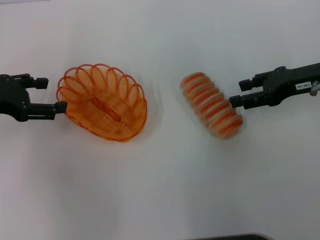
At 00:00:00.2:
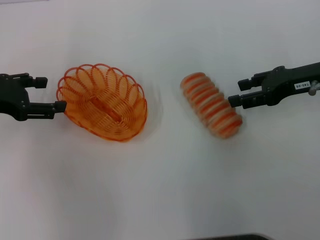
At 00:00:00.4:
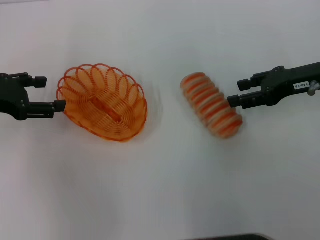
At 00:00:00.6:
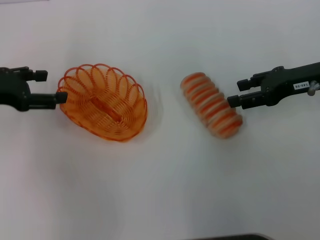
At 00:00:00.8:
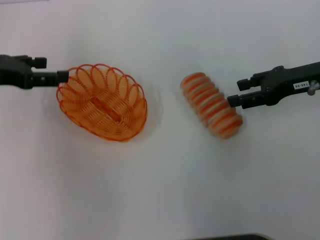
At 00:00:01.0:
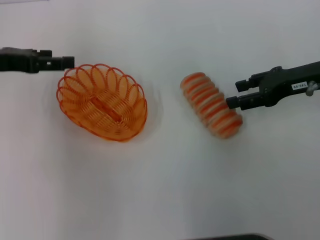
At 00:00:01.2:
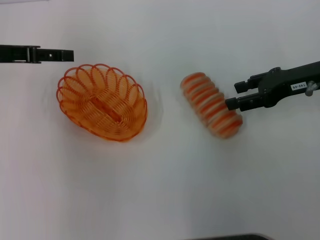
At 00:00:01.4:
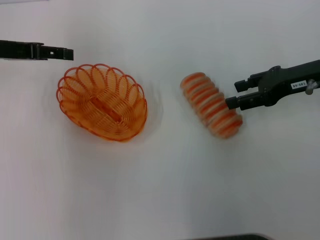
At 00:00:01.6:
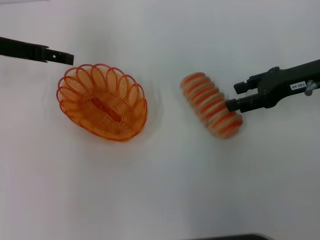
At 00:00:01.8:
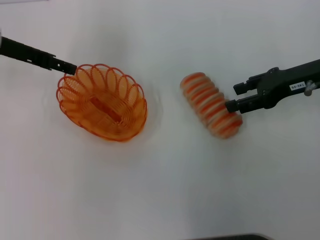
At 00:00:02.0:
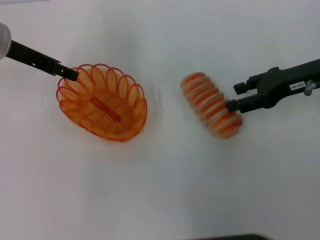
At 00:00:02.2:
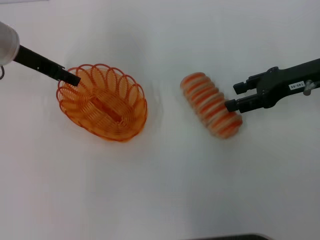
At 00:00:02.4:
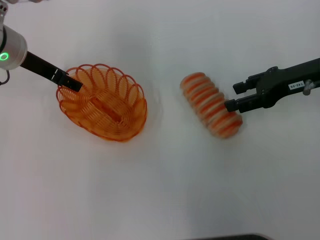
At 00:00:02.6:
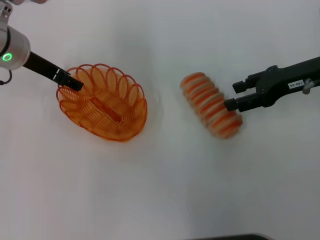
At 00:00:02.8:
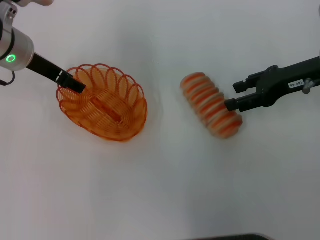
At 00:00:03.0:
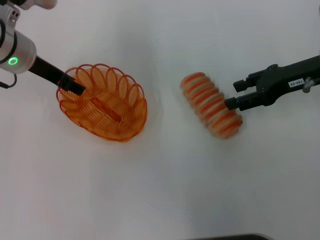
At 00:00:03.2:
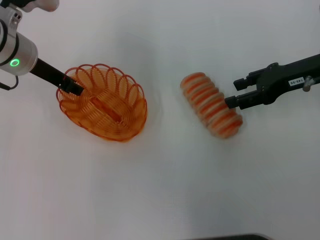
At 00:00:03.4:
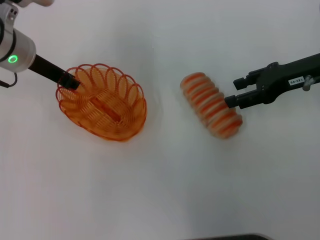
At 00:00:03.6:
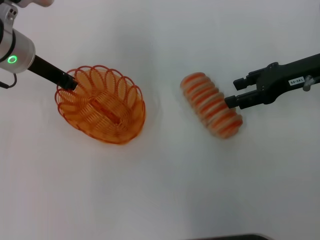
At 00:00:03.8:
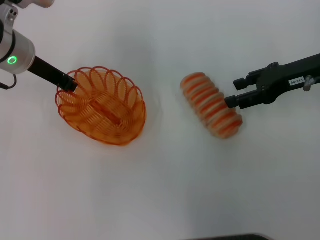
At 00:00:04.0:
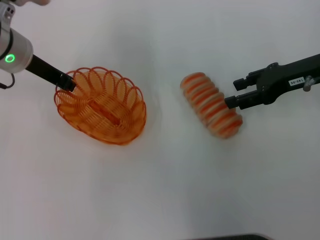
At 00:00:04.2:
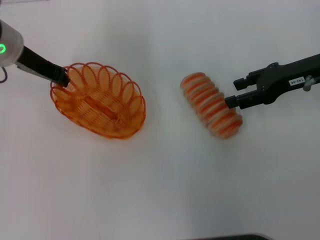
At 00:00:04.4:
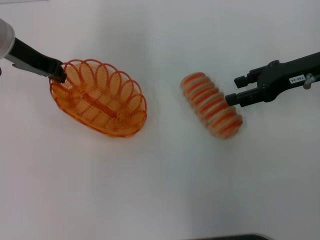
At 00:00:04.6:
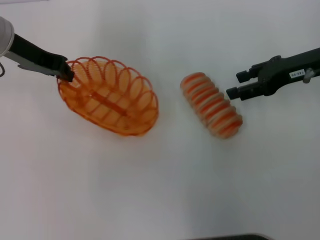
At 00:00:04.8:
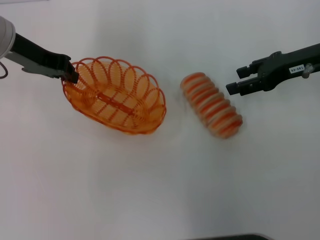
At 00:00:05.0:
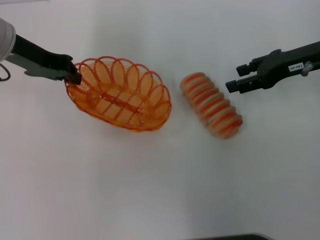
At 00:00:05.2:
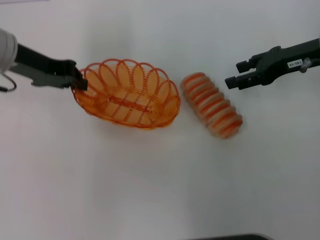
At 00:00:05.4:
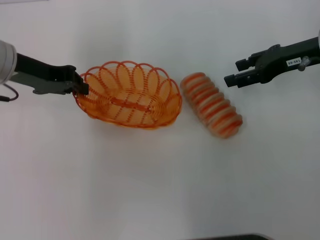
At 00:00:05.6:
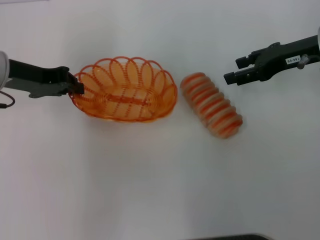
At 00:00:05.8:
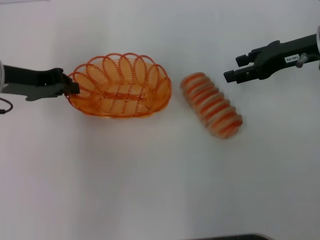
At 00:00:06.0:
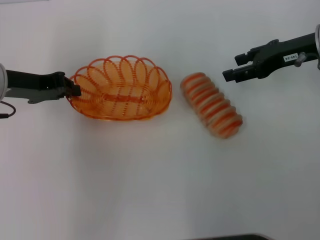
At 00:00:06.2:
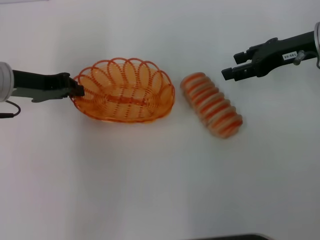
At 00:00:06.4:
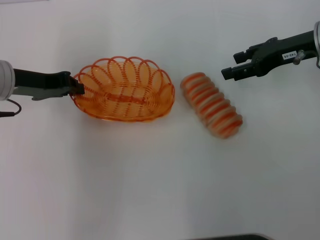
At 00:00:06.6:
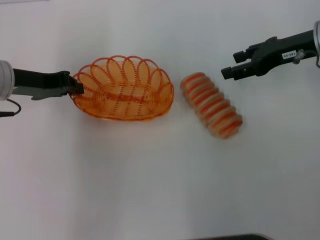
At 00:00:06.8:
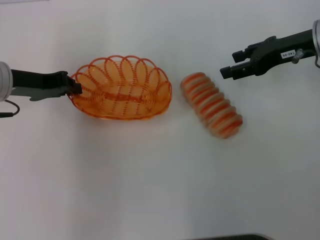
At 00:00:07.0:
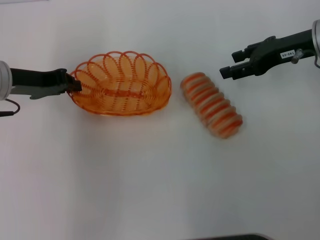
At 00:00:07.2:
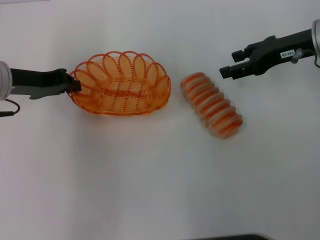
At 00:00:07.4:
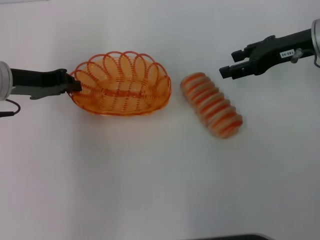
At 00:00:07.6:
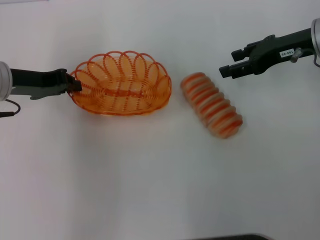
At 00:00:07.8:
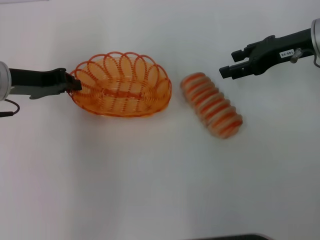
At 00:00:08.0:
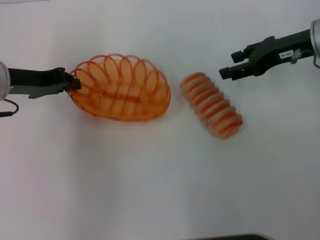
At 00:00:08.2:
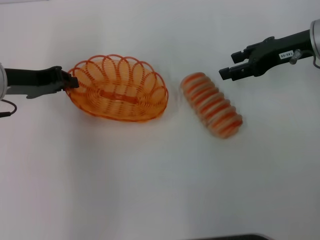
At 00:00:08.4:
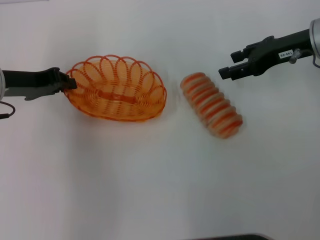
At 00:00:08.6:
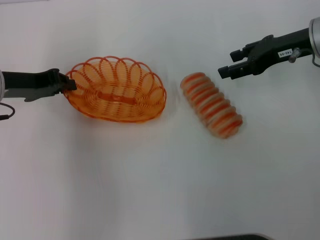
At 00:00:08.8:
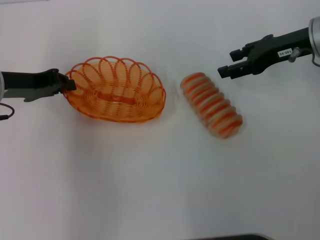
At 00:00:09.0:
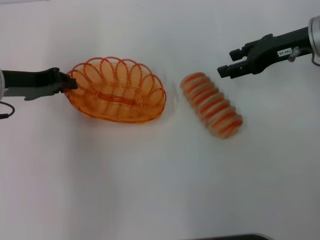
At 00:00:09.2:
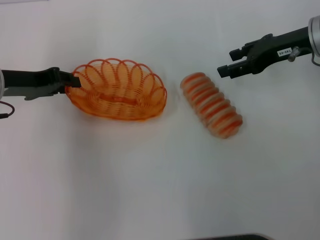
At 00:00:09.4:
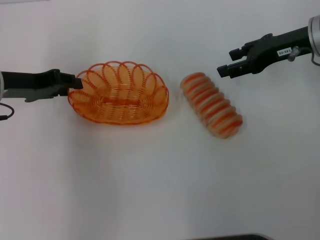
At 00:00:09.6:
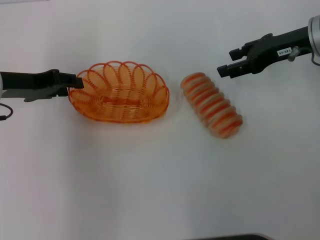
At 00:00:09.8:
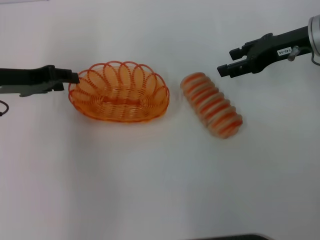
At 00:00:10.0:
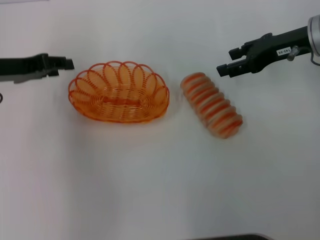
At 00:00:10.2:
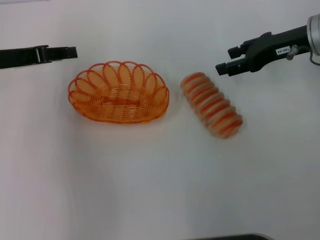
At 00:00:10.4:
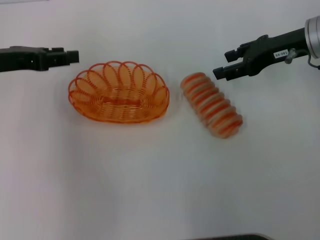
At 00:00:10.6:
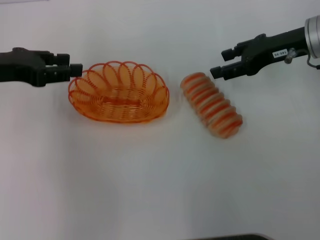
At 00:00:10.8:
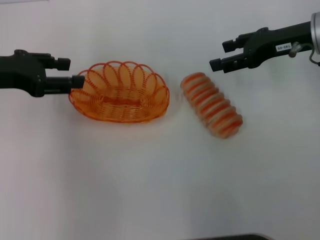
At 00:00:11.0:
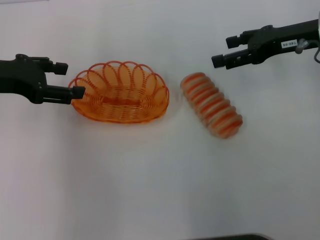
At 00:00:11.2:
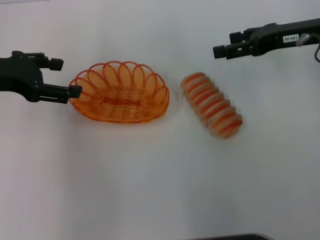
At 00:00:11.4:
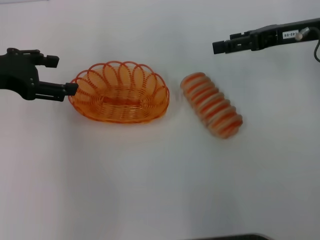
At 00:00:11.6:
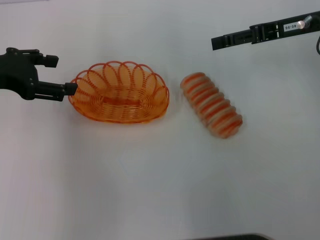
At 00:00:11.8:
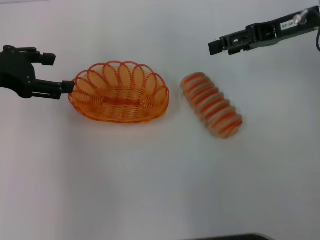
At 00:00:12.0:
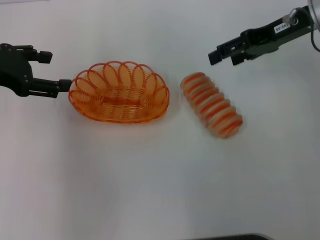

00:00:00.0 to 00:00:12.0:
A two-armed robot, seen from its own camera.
Step, 00:00:00.0 to 00:00:05.0: Pick up the basket with the left gripper.
Step, 00:00:05.2 to 00:00:10.4: Place the basket in the center of view with the left gripper.
00:00:00.0 to 00:00:01.6: The left gripper travels forward by approximately 10 cm.
00:00:01.6 to 00:00:03.0: The left gripper goes about 5 cm to the right.
00:00:03.0 to 00:00:04.4: The left gripper closes up.
00:00:04.4 to 00:00:06.0: The left gripper goes about 5 cm backward.
00:00:06.0 to 00:00:07.6: Both grippers stay put.
00:00:07.6 to 00:00:09.0: Neither gripper changes place.
00:00:09.0 to 00:00:10.4: The left gripper opens its fingers.
00:00:10.4 to 00:00:12.0: The left gripper opens.

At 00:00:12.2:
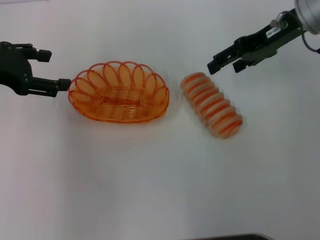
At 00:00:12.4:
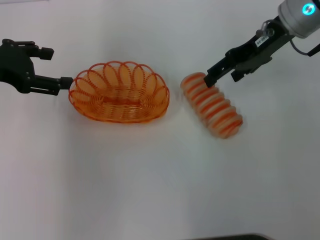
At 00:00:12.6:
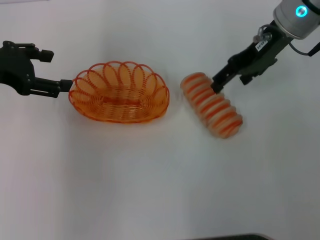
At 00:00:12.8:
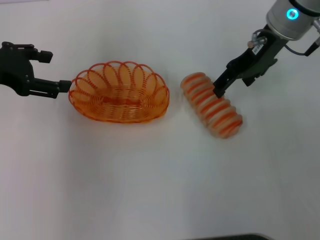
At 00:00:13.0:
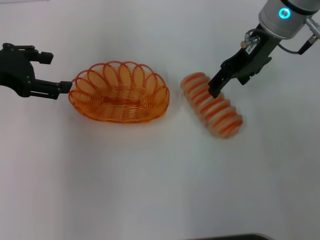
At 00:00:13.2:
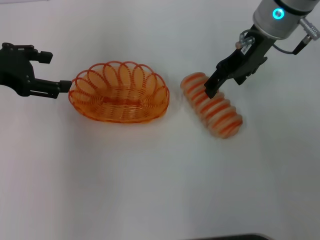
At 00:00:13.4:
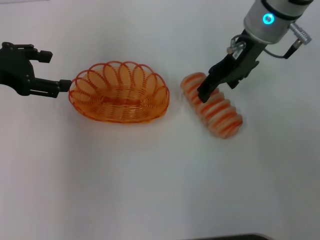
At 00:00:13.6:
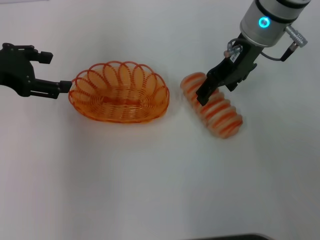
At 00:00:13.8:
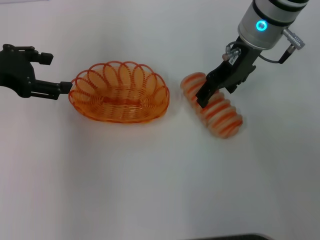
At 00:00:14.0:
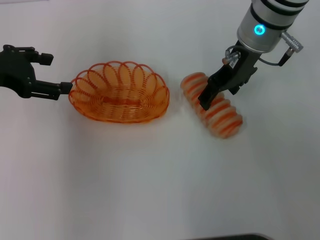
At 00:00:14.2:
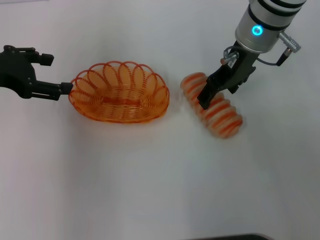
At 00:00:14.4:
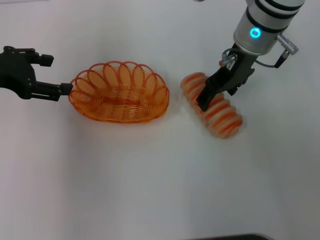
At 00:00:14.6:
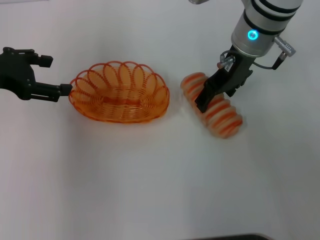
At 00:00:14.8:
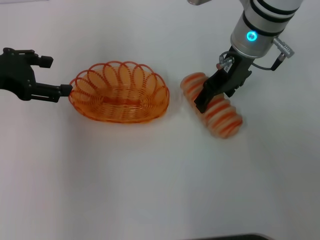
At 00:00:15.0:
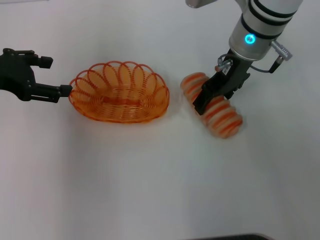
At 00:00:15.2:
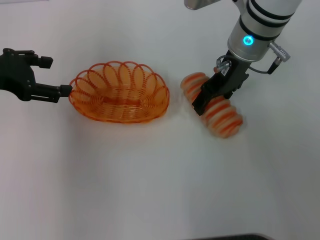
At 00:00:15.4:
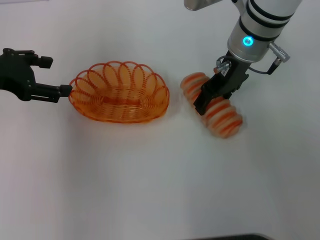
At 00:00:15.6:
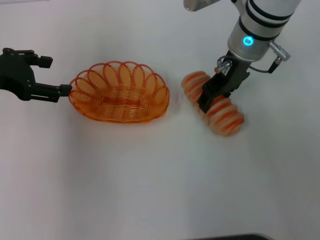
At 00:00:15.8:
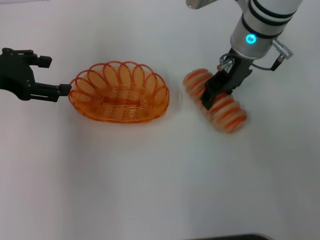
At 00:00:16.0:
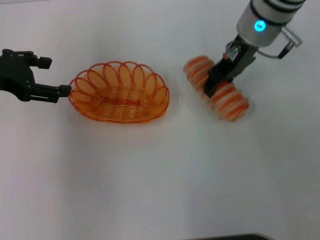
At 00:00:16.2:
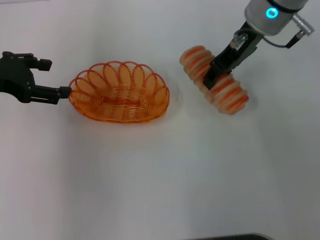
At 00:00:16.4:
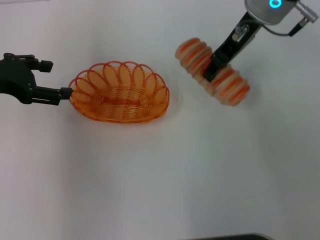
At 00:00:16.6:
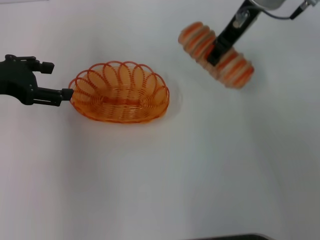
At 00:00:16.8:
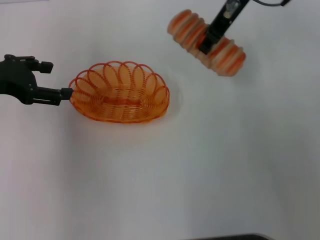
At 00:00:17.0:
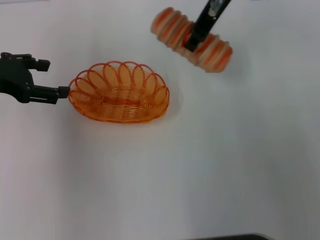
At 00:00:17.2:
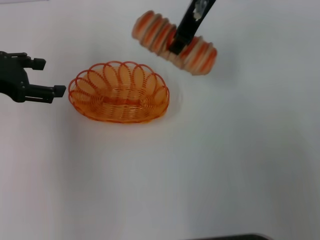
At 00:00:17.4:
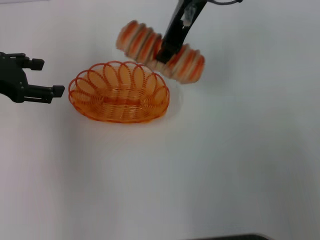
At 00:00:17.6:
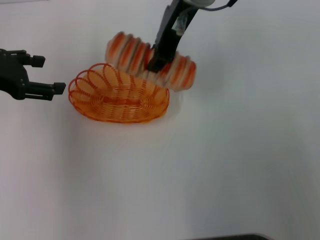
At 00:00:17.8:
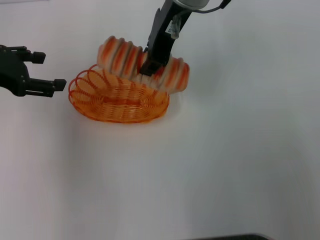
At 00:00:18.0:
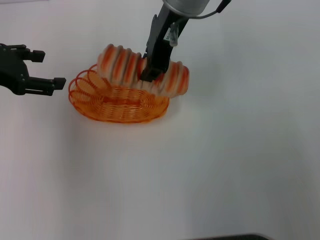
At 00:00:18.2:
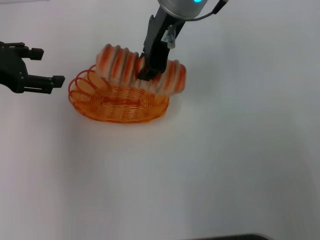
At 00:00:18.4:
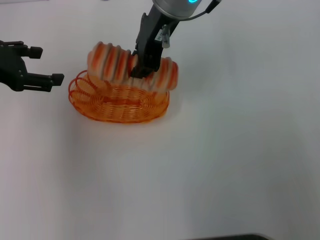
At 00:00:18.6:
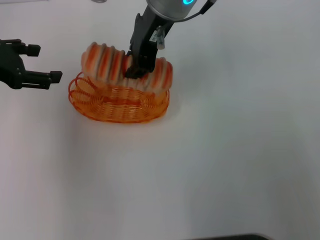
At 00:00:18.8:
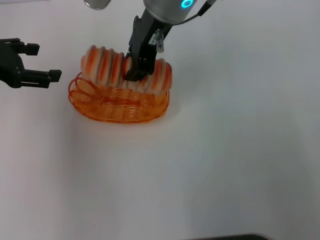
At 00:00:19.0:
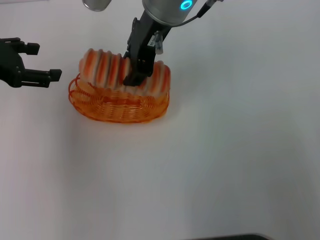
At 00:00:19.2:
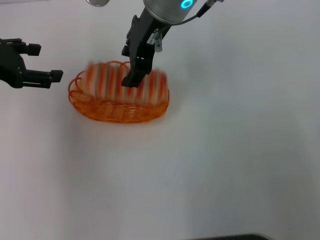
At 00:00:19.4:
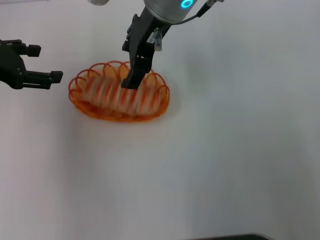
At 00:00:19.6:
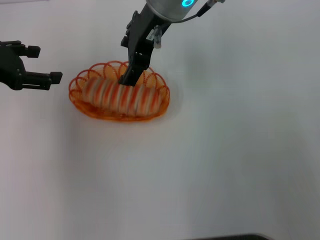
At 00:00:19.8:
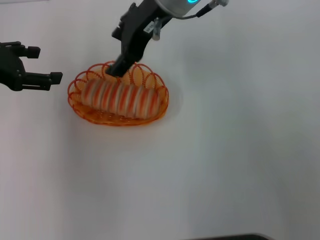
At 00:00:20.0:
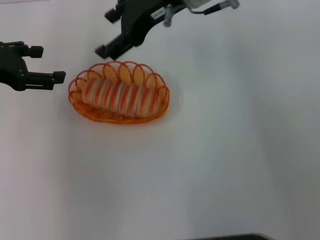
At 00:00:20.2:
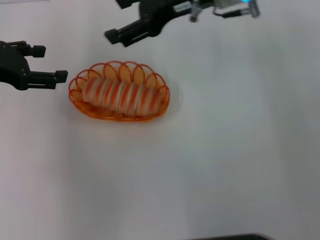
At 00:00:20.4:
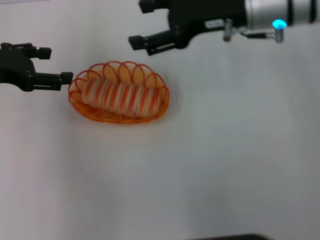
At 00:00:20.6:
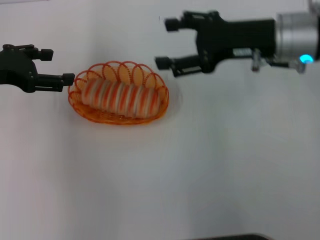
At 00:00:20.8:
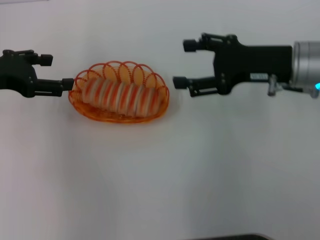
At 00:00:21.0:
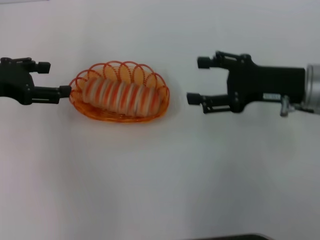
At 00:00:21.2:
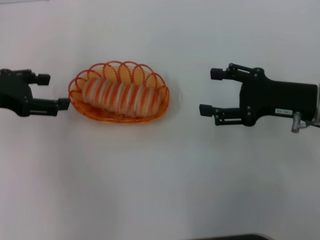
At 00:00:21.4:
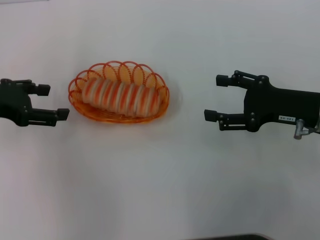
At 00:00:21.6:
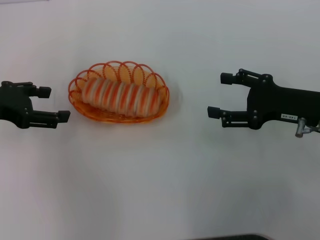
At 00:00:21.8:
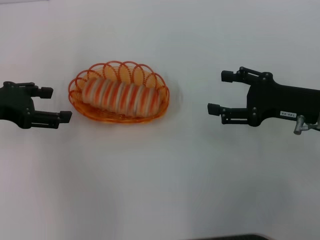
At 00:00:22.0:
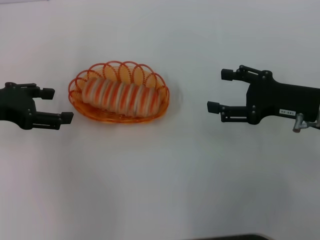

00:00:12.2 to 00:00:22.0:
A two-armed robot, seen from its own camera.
Step, 00:00:12.2 to 00:00:16.4: Pick up the long bread with the right gripper.
Step, 00:00:16.8 to 00:00:20.0: Place the long bread into the basket with the right gripper.
00:00:12.2 to 00:00:13.6: The right gripper travels to the left by roughly 10 cm.
00:00:13.6 to 00:00:15.0: There are only small adjustments of the grippers.
00:00:15.0 to 00:00:16.4: The right gripper travels upward by approximately 5 cm, and closes.
00:00:16.4 to 00:00:17.8: The right gripper travels to the left by approximately 10 cm, and closes its fingers.
00:00:17.8 to 00:00:19.2: The right gripper opens up.
00:00:19.2 to 00:00:20.6: The right gripper shifts some 20 cm to the right and downward, and opens its fingers.
00:00:20.6 to 00:00:22.0: The right gripper is displaced downward, backward and to the right by approximately 10 cm.
